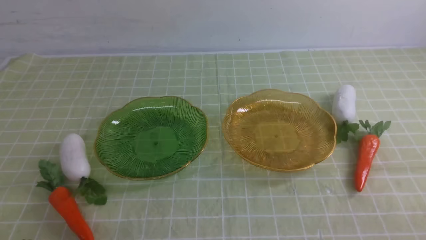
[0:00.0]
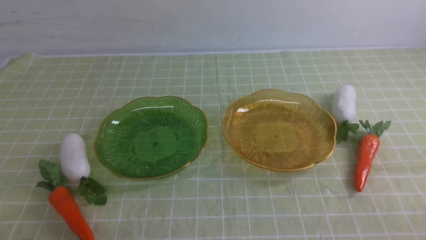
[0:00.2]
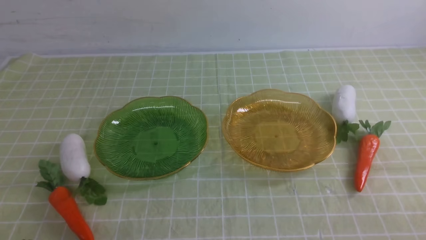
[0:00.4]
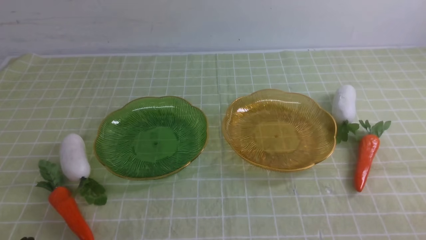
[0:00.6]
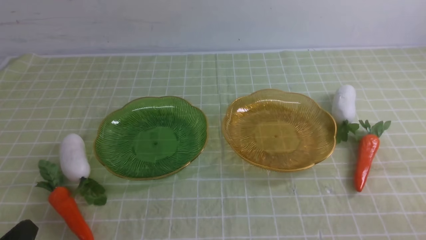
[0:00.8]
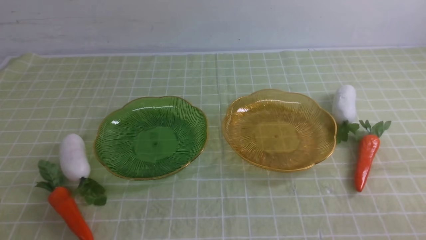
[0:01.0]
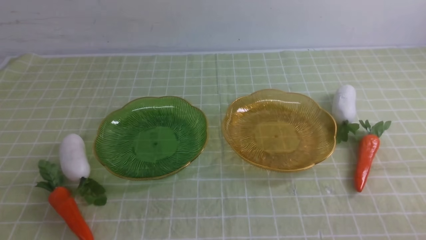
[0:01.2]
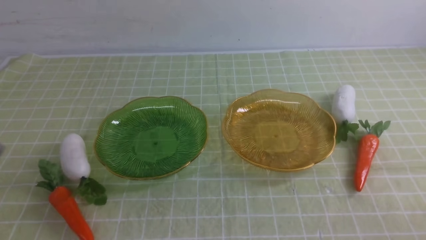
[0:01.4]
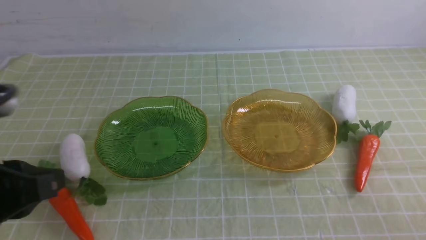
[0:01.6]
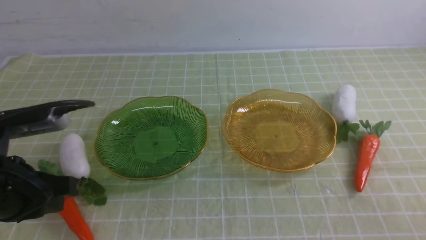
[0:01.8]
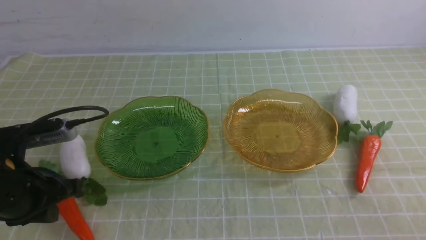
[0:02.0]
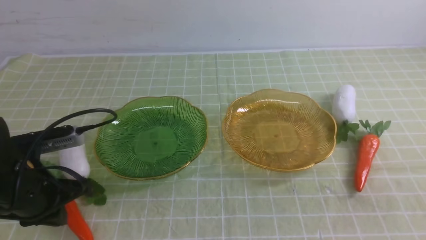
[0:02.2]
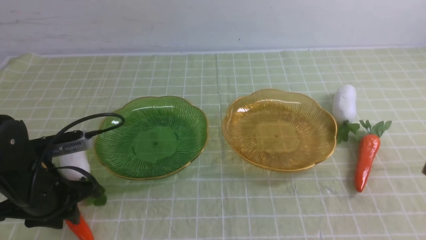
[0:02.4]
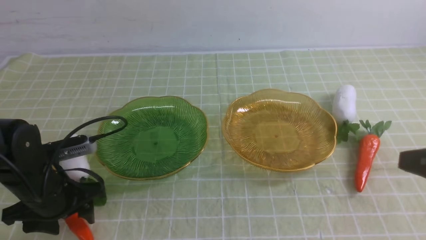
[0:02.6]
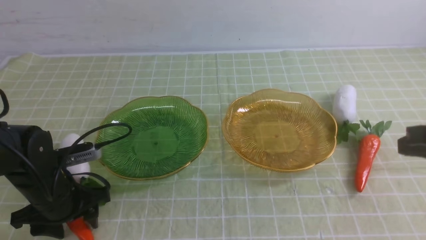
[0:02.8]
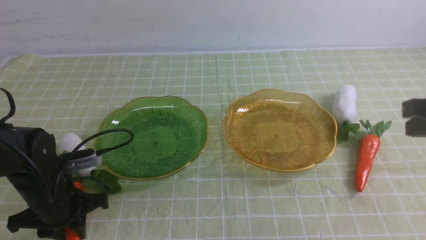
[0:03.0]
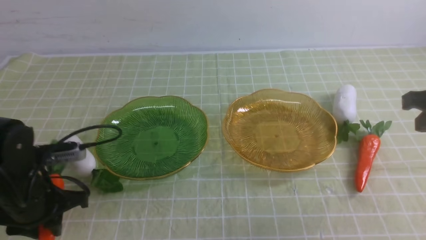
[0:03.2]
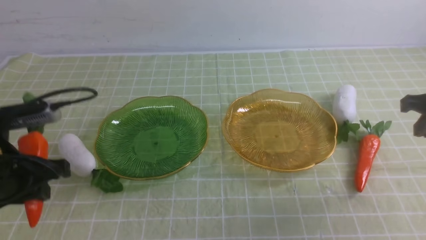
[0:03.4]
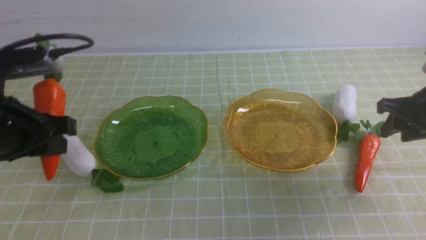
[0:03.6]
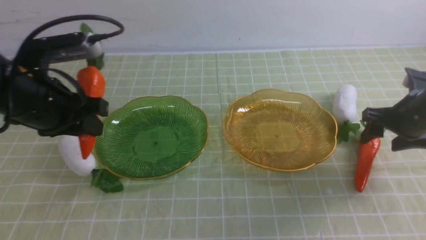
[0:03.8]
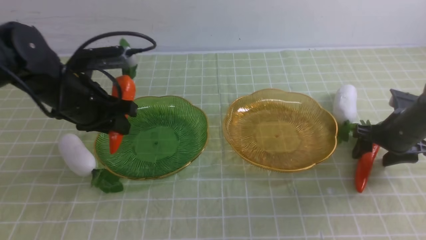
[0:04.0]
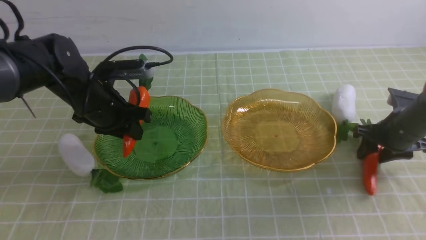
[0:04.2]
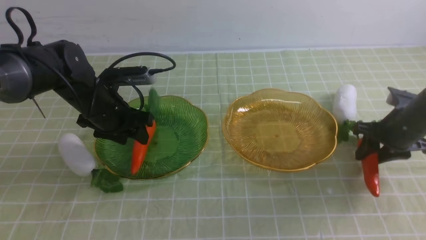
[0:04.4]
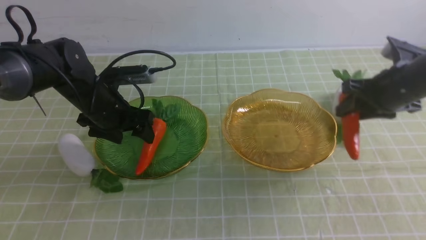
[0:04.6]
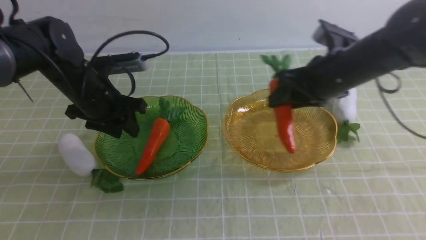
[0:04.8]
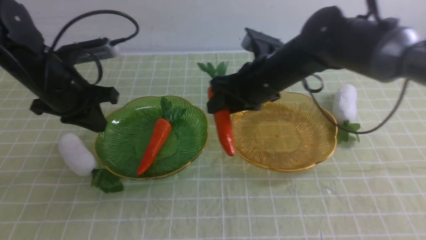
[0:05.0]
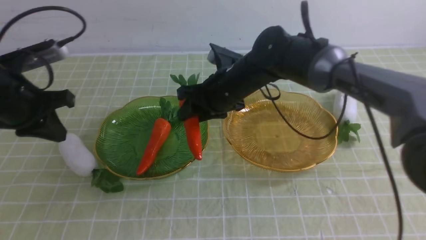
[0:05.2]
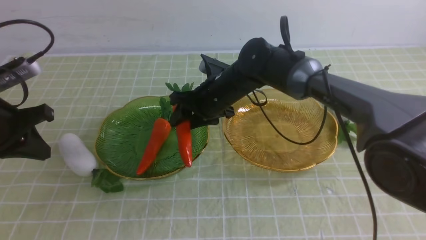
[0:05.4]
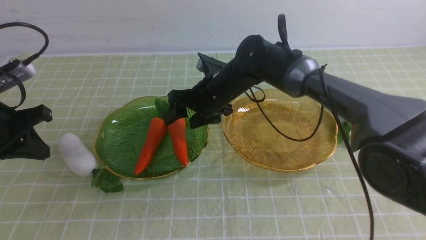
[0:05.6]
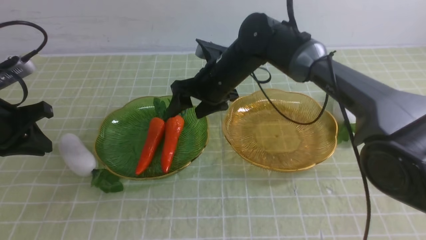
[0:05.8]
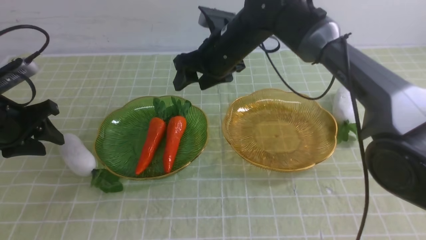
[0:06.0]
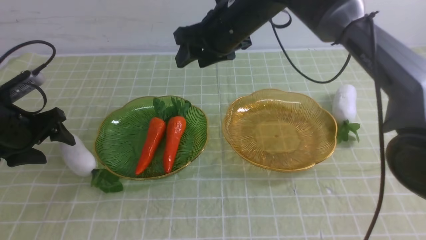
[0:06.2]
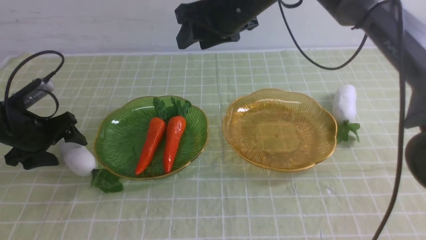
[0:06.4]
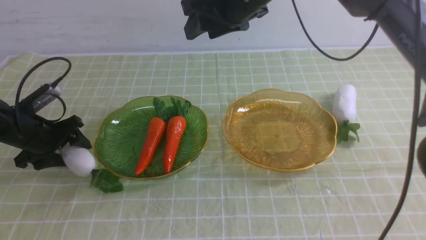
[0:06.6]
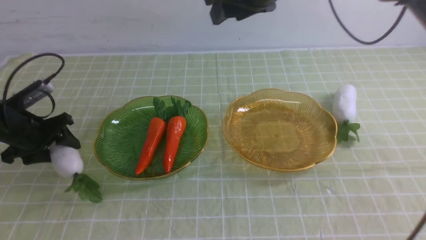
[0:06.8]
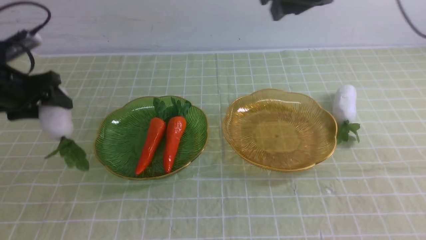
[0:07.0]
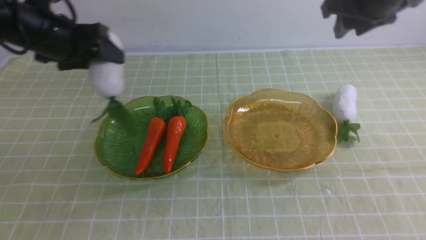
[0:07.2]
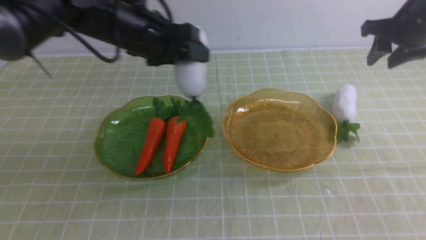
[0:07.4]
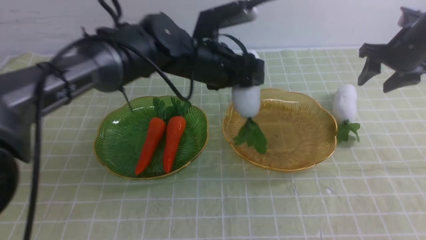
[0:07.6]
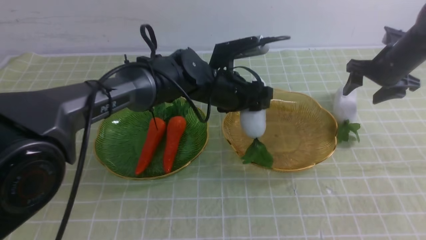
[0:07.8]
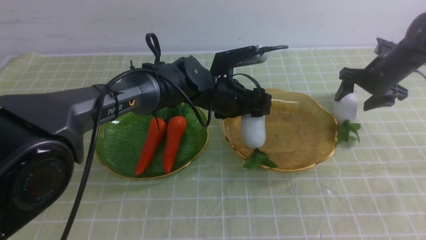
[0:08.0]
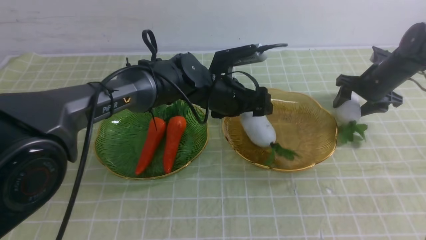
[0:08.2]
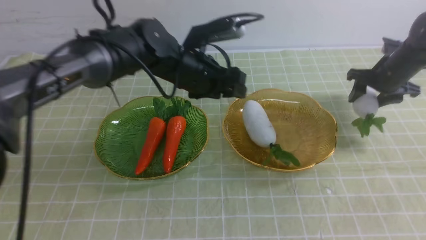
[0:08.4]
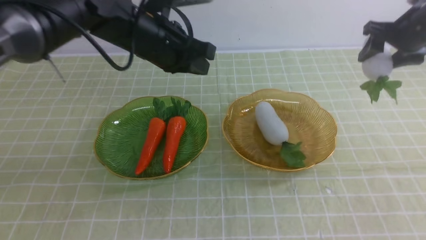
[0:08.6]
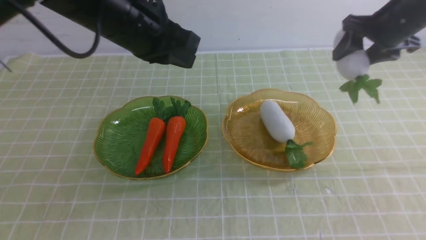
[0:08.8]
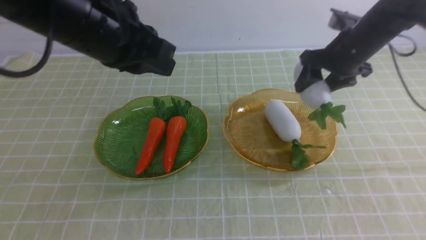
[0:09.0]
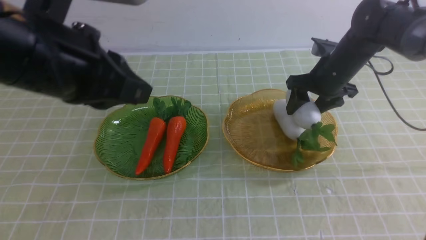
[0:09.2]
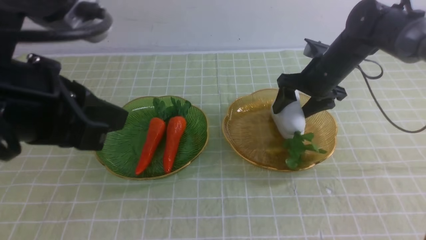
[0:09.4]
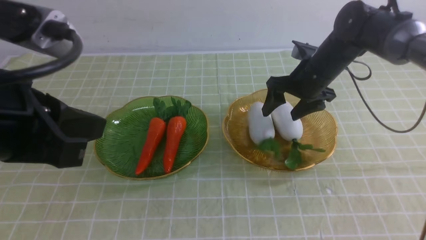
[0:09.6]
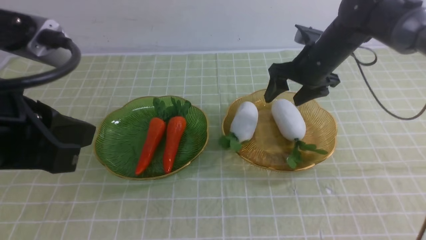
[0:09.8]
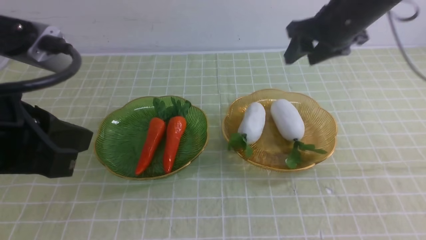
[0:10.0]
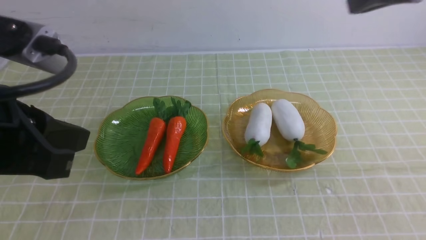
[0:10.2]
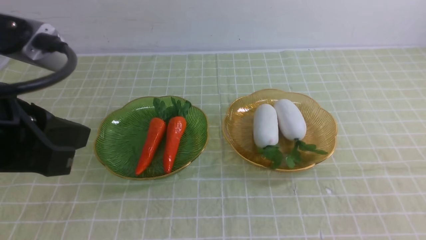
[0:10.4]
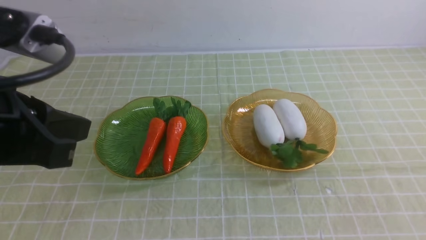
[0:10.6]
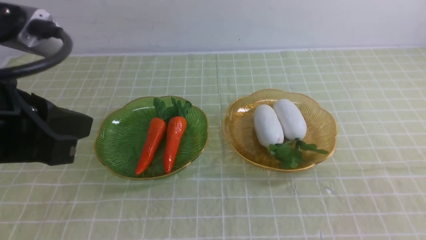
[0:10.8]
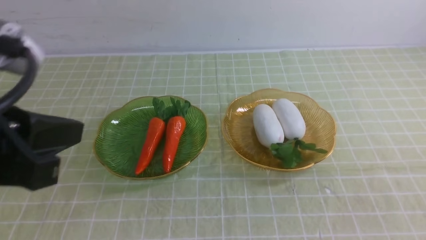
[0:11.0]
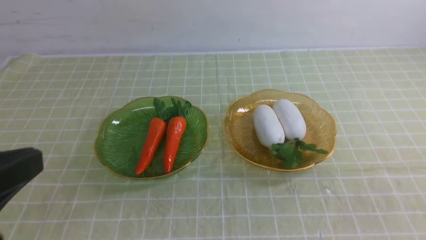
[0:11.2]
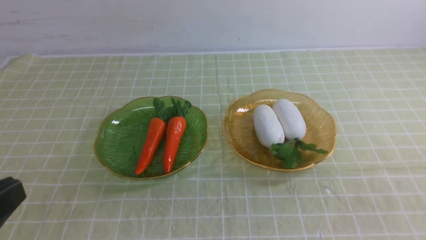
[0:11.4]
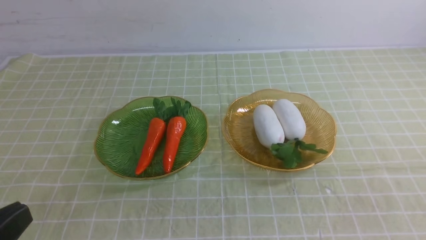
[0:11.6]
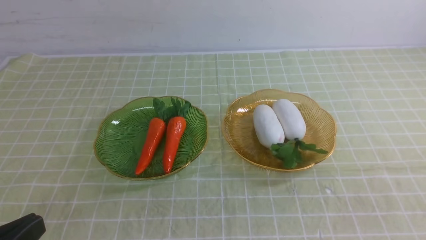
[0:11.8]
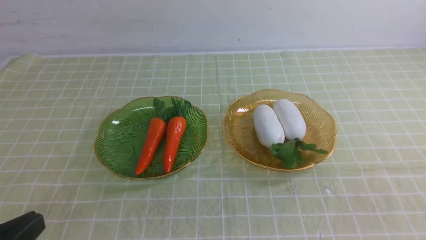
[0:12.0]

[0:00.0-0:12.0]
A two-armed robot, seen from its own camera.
Step, 0.0 to 4.8 s: use the left arm to grab a carrot and put it into the left plate.
Step, 5.0 to 5.8 s: use the right arm to grab a carrot and put it into the left plate.
Step, 6.2 to 9.0 s: use the left arm to grab a radish and put it into the right plate.
Step, 9.2 to 10.0 s: use the right arm to grab a radish and put it into the right plate.
0.0 to 1.6 s: The left gripper moves upward and forward, approximately 15 cm.
1.6 to 3.0 s: The left gripper heads downward and forward, covering some 20 cm, and opens its fingers. Meanwhile the right gripper shifts some 20 cm forward and upward.
3.0 to 4.4 s: The left gripper heads forward, covering approximately 15 cm. Meanwhile the right gripper moves forward and downward, about 20 cm, and opens up.
4.4 to 6.0 s: The right gripper shifts roughly 30 cm to the left. The left gripper heads to the left and backward, covering some 15 cm, and closes and opens again.
6.0 to 7.6 s: The two grippers go approximately 30 cm to the right.
7.6 to 9.0 s: The left gripper is displaced backward, upward and to the left by some 20 cm, and closes, while the right gripper is displaced to the left by some 10 cm, and moves some 10 cm downward and comes back.
9.0 to 10.4 s: The right gripper is displaced backward and upward by roughly 40 cm, and closes its fingers. The left gripper shifts approximately 15 cm backward and to the left.
10.4 to 12.0 s: The left gripper travels downward and backward by approximately 15 cm.

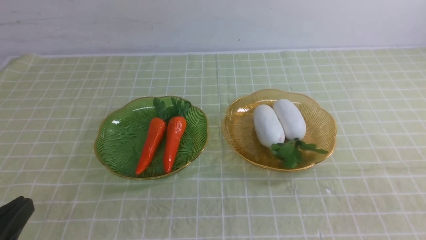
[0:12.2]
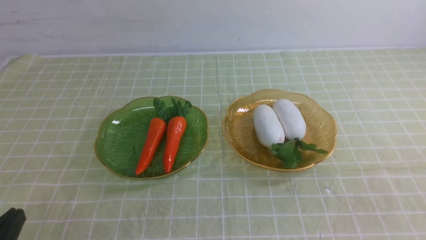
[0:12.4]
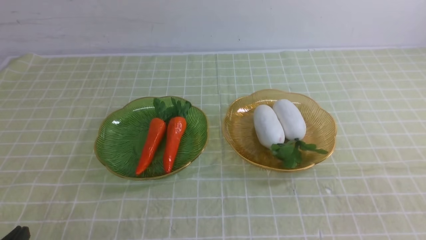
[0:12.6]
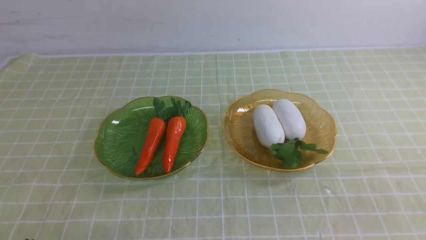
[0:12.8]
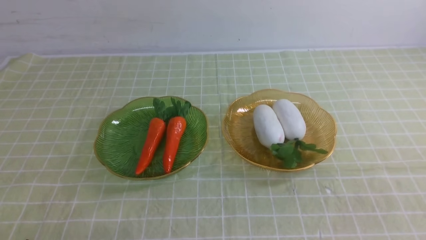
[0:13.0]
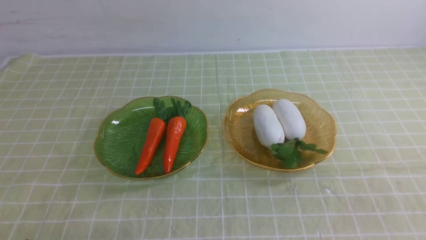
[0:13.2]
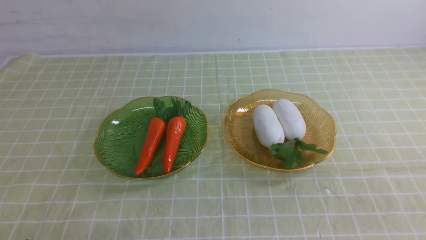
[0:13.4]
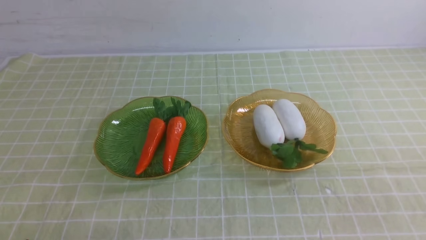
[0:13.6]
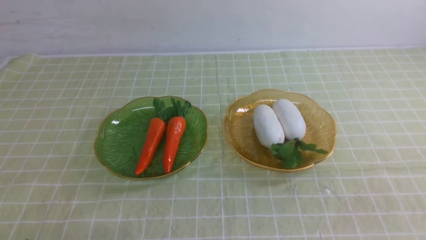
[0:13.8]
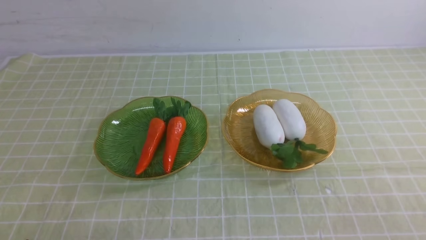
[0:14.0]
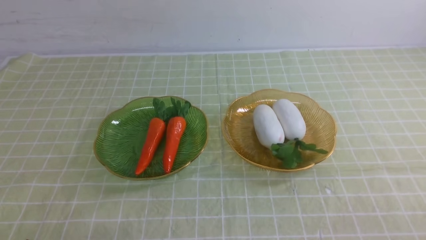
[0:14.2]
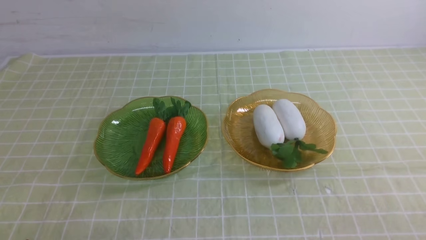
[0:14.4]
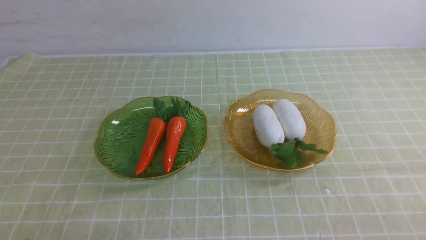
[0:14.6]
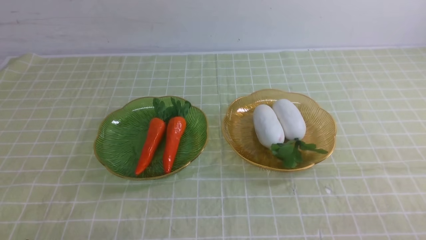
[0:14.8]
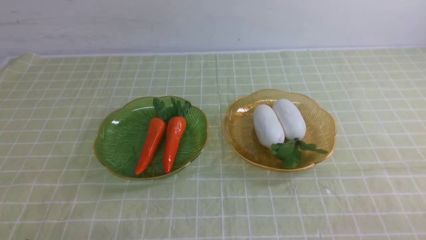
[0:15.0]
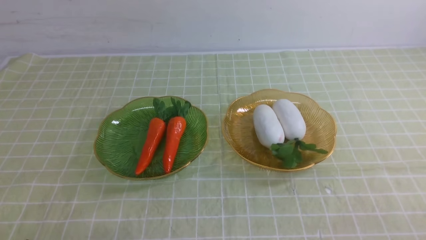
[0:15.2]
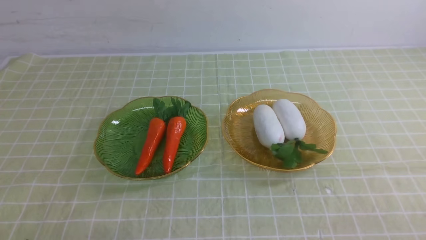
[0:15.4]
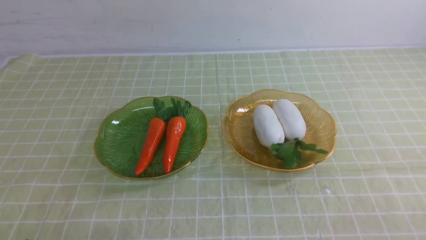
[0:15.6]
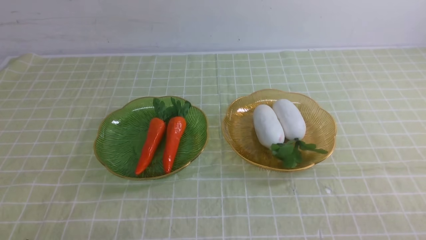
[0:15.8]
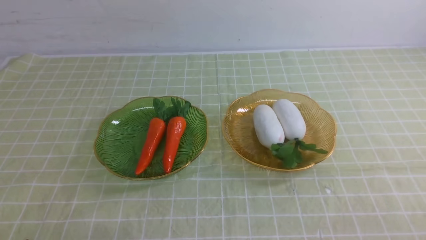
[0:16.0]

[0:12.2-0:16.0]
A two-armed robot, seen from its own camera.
12.2 to 13.4 s: The left gripper is displaced downward by roughly 10 cm.
14.8 to 16.0 s: Neither gripper changes place.

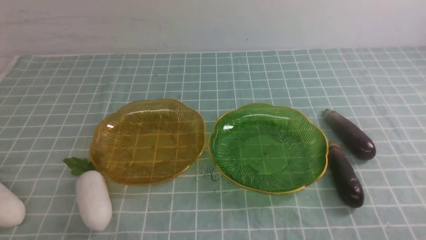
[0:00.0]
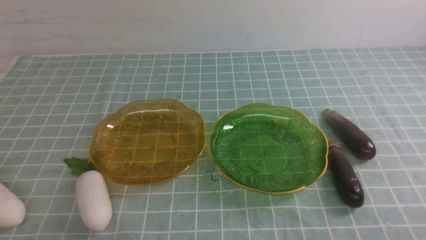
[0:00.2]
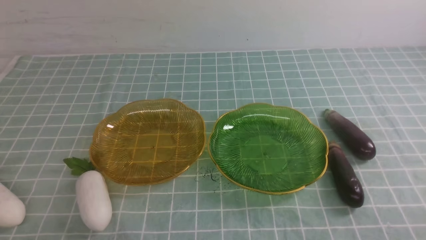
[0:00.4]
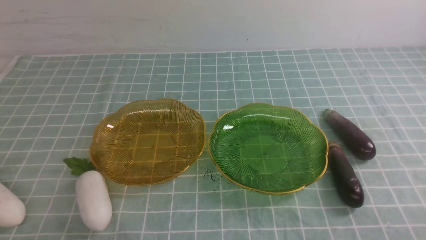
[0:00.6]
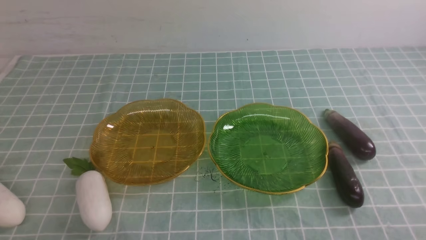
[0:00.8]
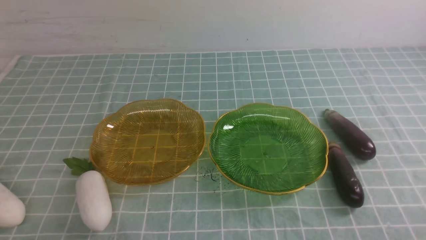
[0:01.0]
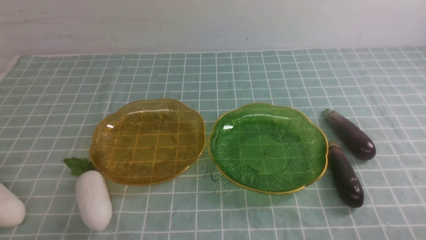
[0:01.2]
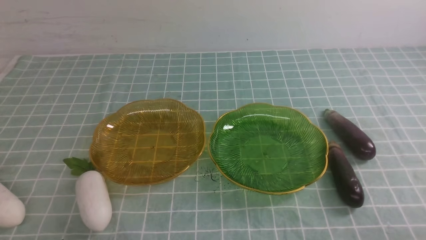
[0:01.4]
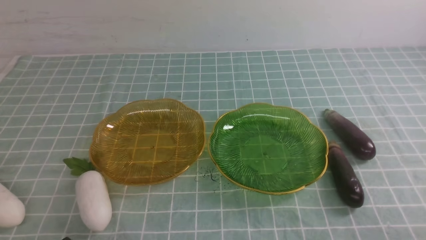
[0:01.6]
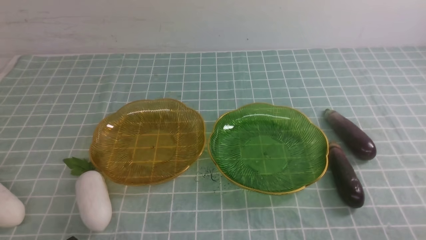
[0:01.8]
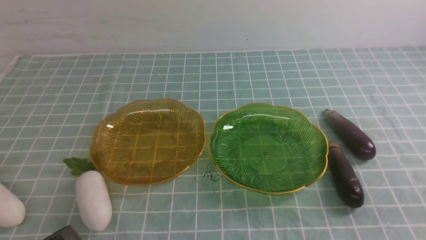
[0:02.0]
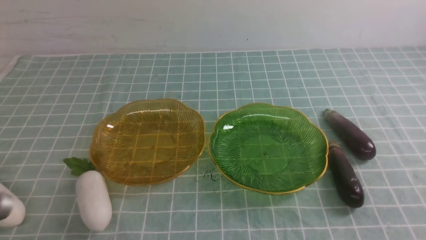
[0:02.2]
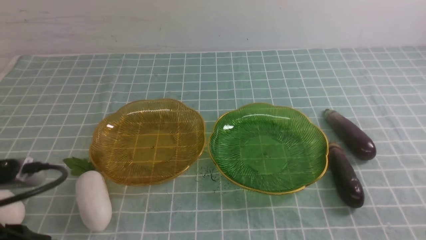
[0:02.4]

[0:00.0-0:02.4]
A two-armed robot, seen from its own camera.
1.2 to 2.4 s: The left gripper shifts roughly 10 cm upward and forward.
